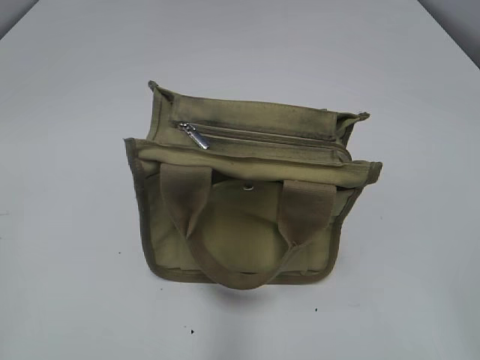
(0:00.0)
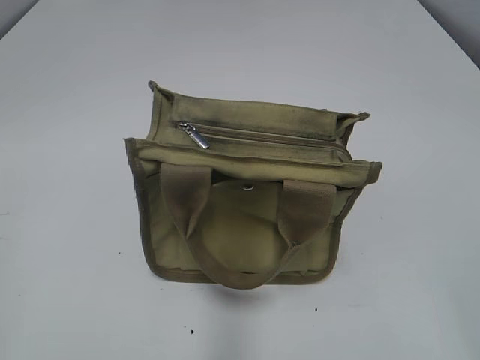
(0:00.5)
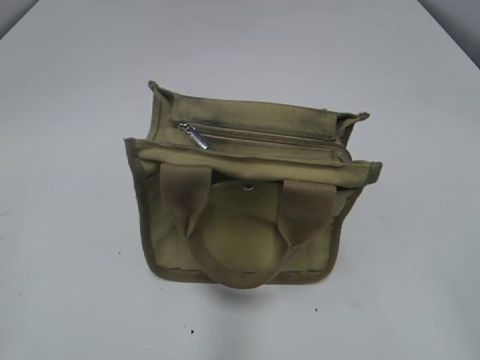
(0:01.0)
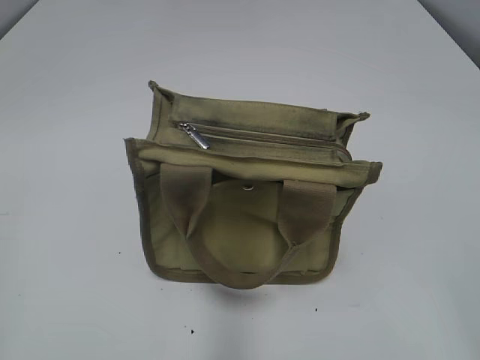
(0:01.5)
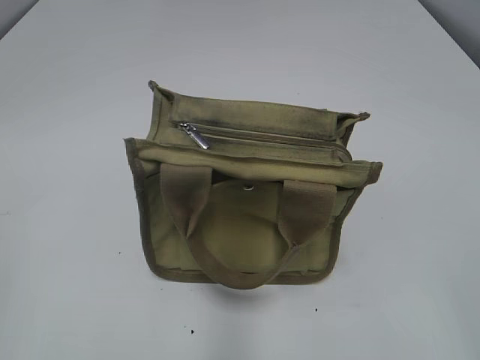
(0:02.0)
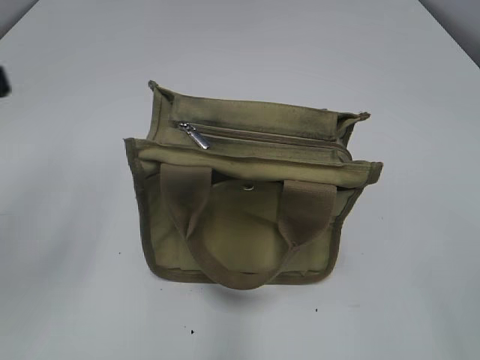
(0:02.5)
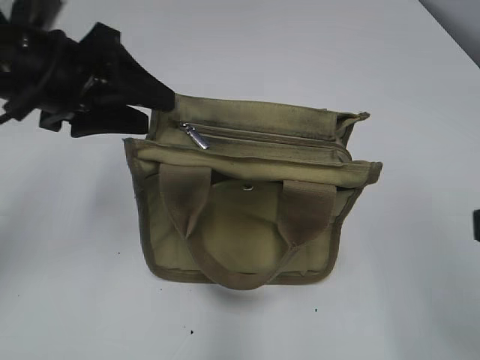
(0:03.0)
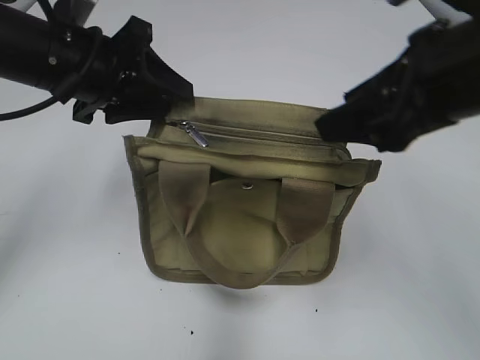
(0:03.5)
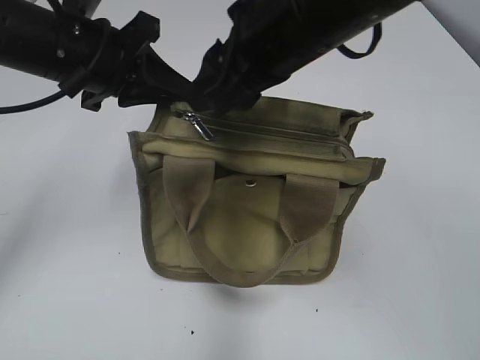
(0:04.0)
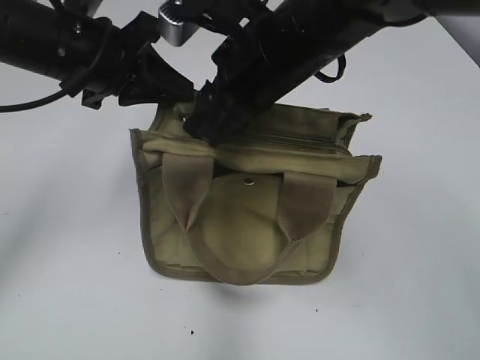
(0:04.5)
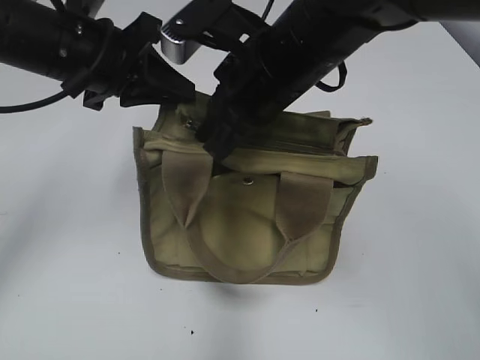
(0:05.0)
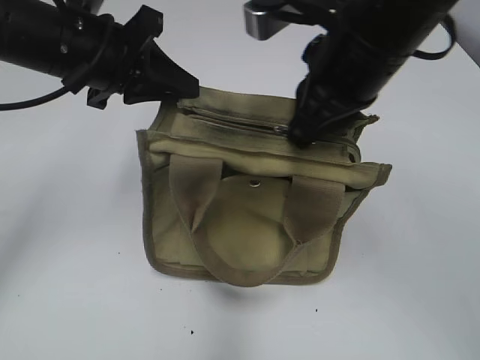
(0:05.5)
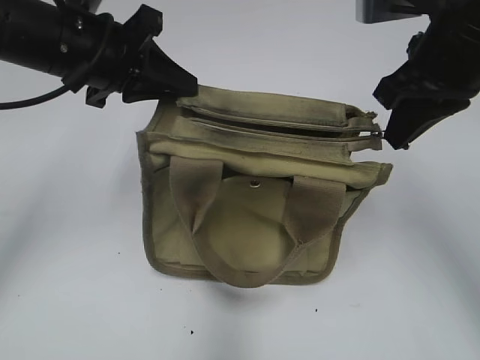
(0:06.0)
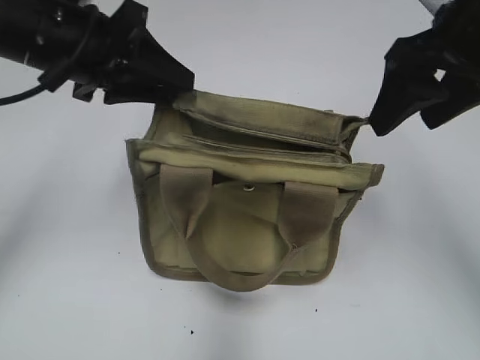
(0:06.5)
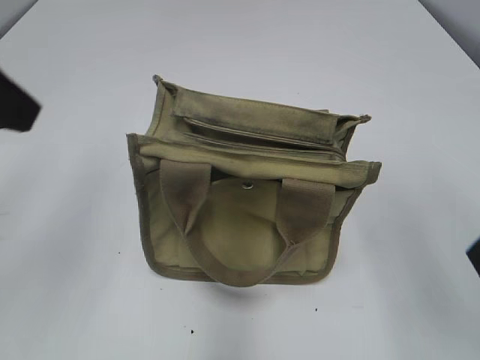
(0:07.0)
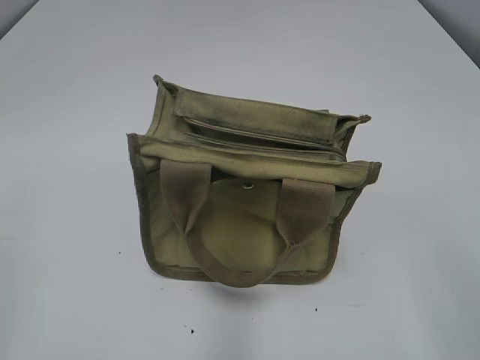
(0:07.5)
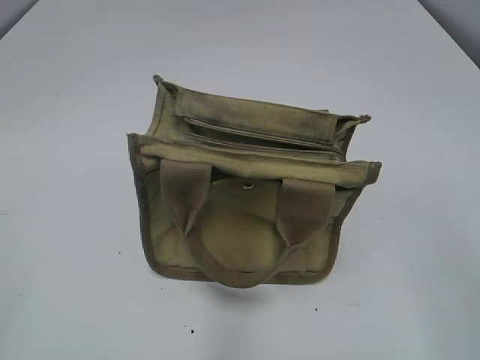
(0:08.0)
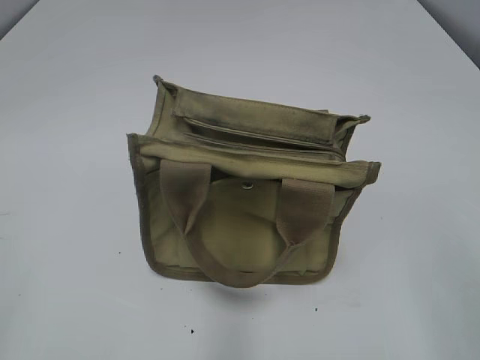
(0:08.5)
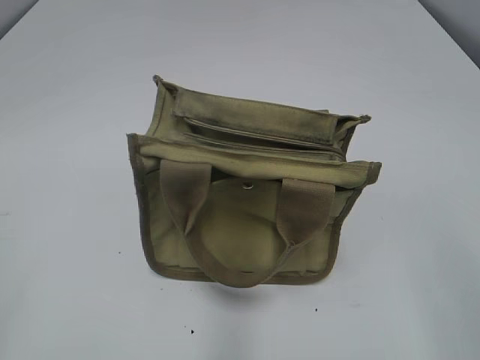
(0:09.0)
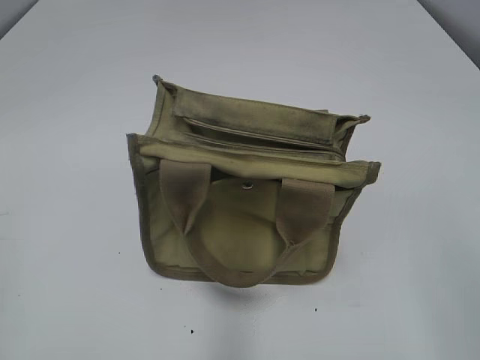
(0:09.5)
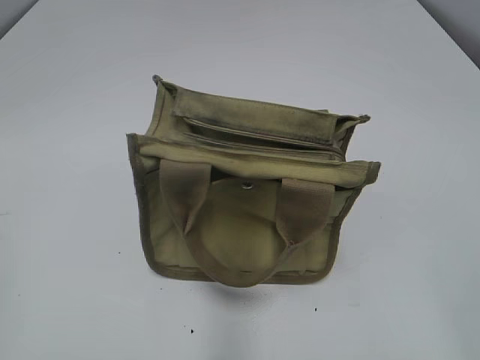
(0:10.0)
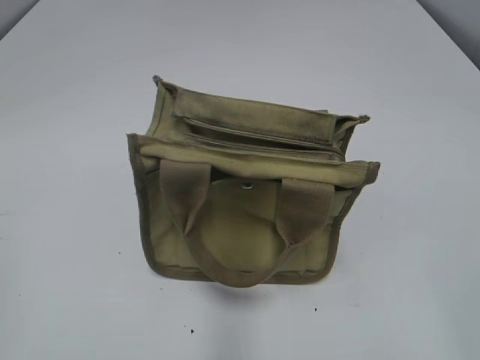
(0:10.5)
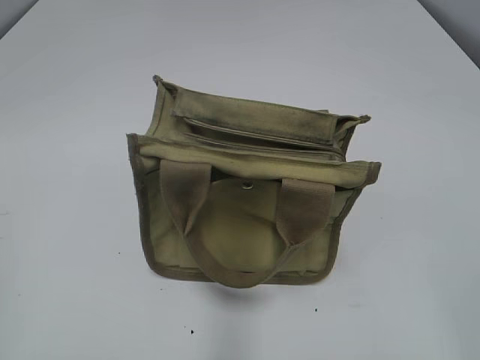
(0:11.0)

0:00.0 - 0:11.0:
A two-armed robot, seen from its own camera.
Step, 0:00.0 - 0:06.0: Pull open the zipper with your right hand.
0:02.0 - 0:03.5: The left gripper goes about 35 cm forward and to the right, and opens up. Meanwhile the right gripper heads forward and to the left, covering about 25 cm.
0:03.5 - 0:05.5: The right gripper travels to the left and forward by approximately 15 cm, and closes up; the left gripper closes up.
0:05.5 - 0:07.5: The left gripper shifts about 30 cm backward and to the left, and opens its fingers. The right gripper shifts about 30 cm backward and to the right, and opens up.

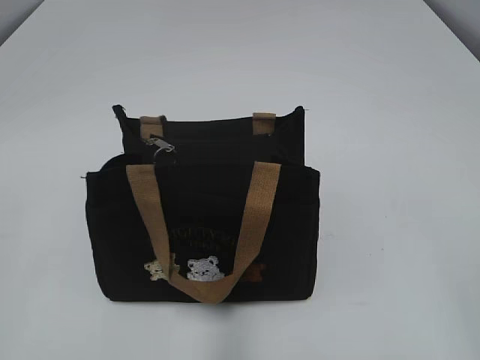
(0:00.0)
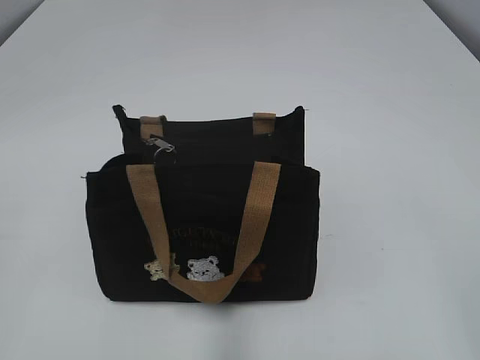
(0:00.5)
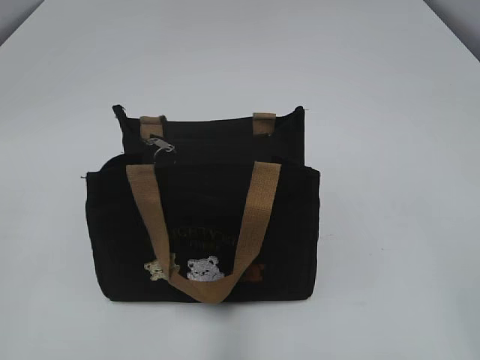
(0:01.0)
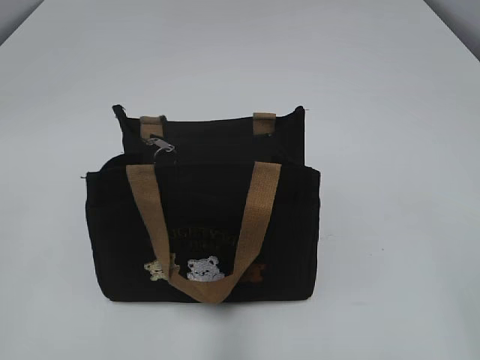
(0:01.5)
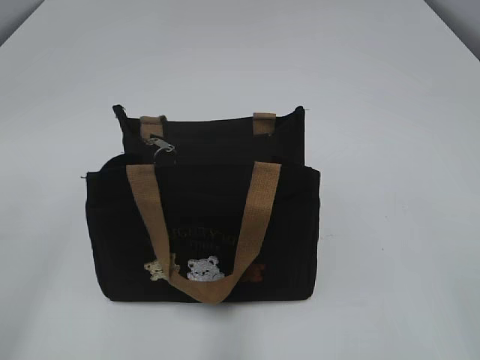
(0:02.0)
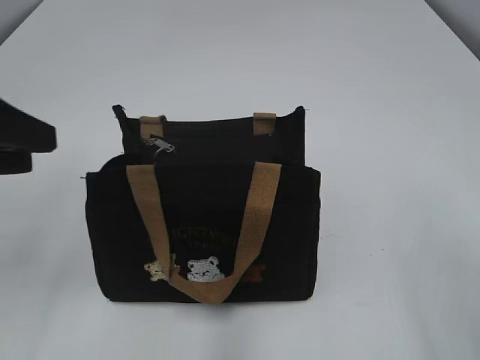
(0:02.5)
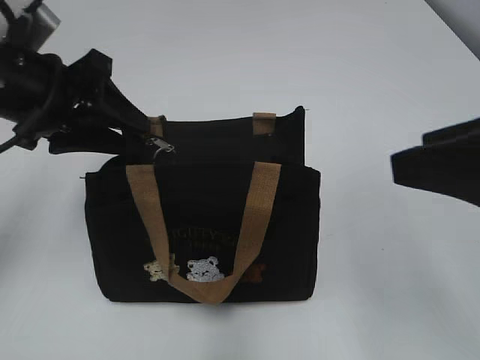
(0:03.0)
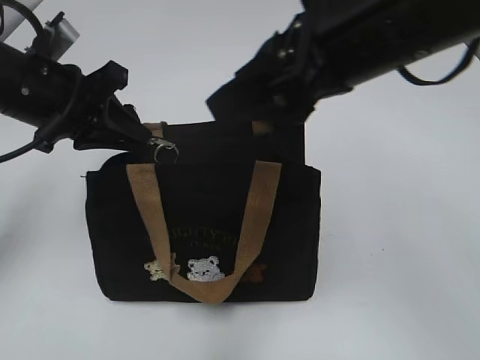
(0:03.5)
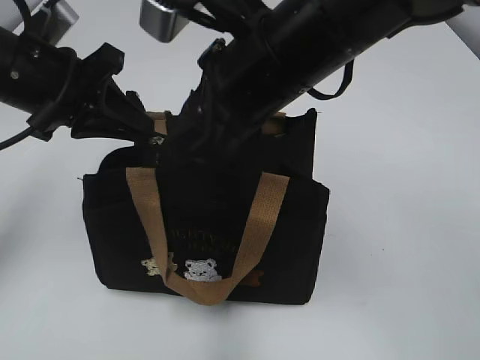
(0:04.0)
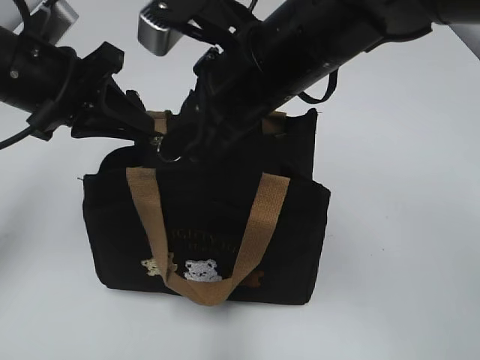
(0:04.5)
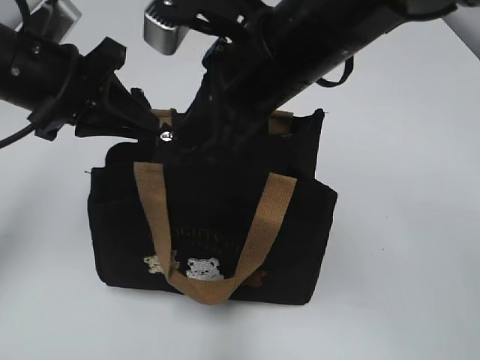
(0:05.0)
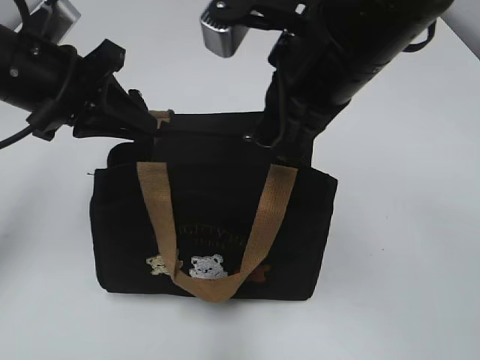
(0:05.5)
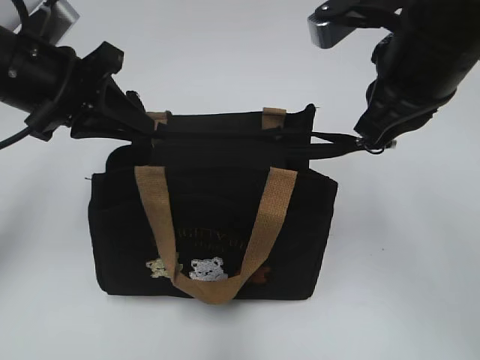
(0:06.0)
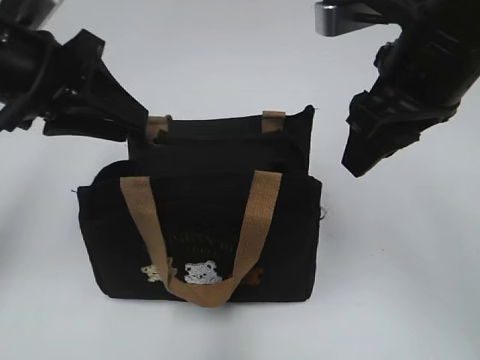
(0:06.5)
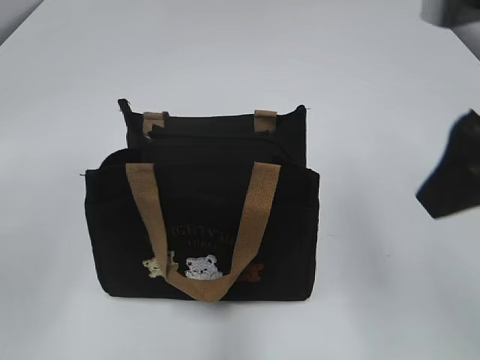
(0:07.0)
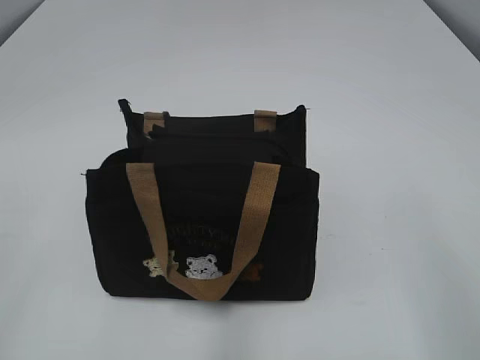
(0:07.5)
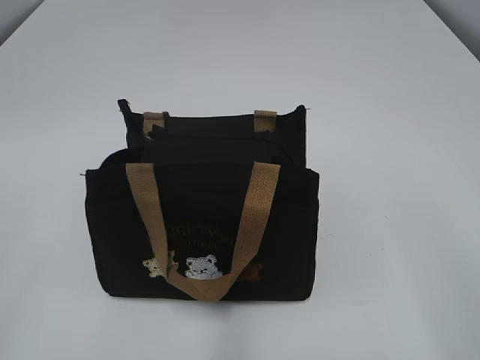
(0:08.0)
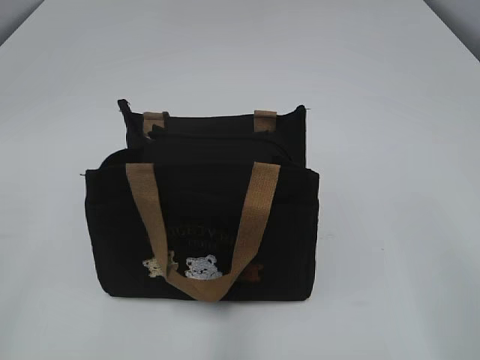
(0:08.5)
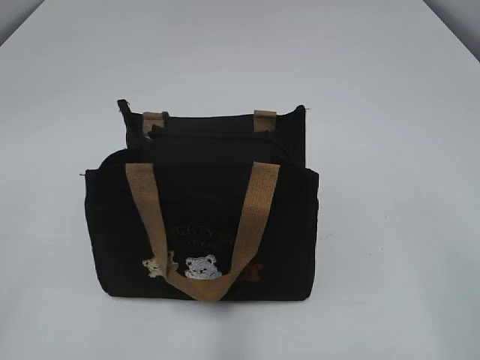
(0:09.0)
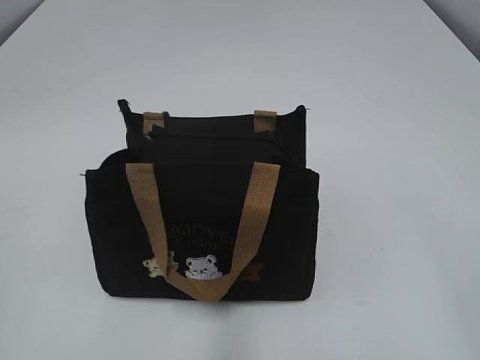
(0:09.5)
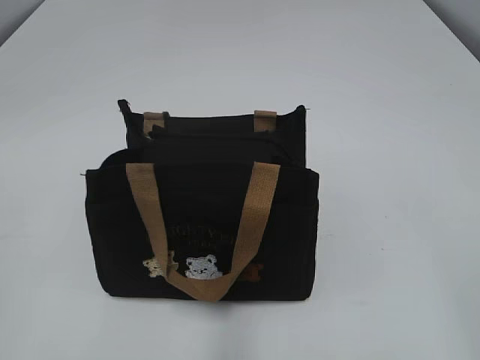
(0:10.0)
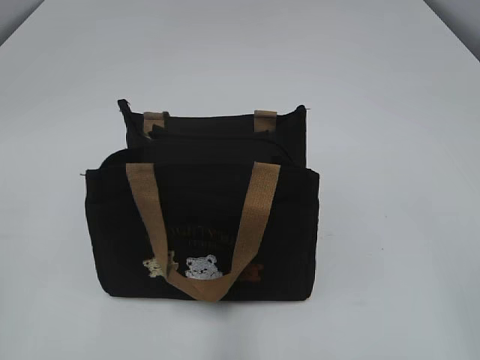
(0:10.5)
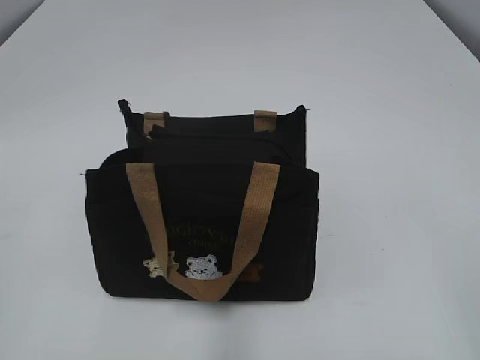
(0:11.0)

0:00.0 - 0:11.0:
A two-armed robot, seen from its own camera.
Step, 0:00.0 - 0:06.0: Pull open the zipper with your right hand.
0:02.0 - 0:03.5: The left gripper is displaced forward by approximately 30 cm, and closes its fingers. The right gripper goes approximately 30 cm forward and to the left.
0:03.5 - 0:05.5: The right gripper closes its fingers.
0:05.5 - 0:07.5: The right gripper heads backward and to the right, covering roughly 25 cm, and opens; the left gripper moves backward and to the left, some 30 cm, and opens up.

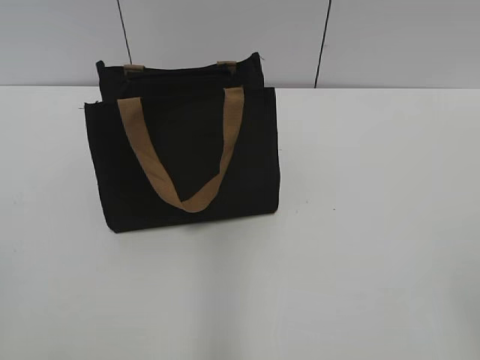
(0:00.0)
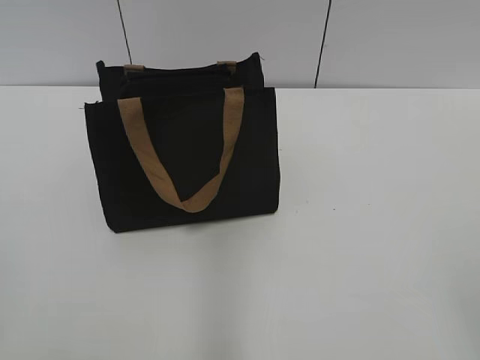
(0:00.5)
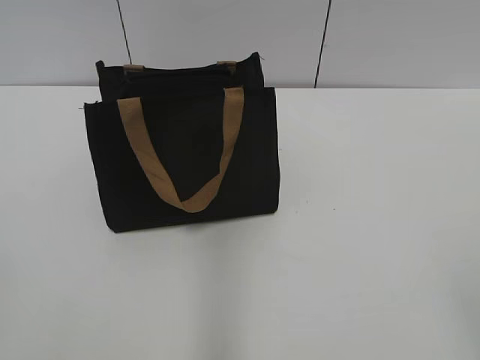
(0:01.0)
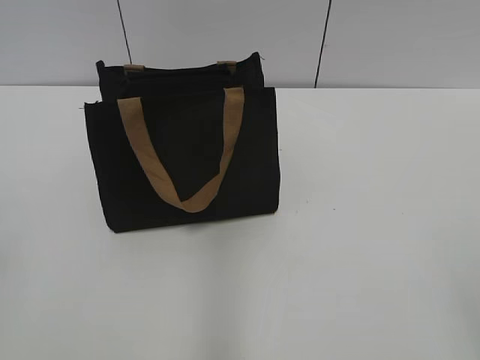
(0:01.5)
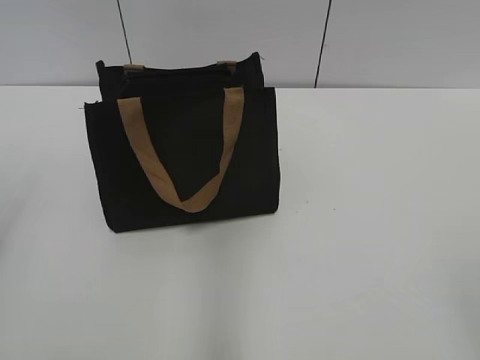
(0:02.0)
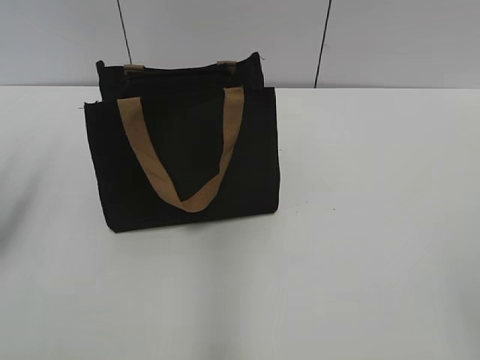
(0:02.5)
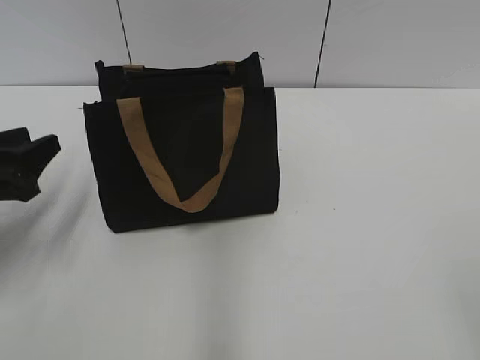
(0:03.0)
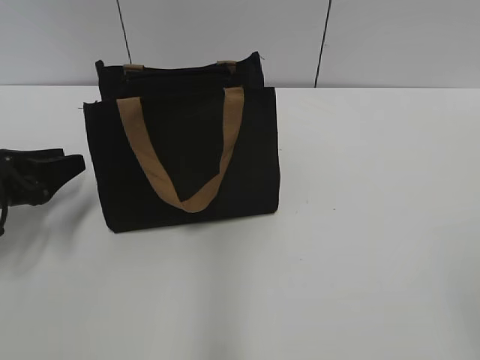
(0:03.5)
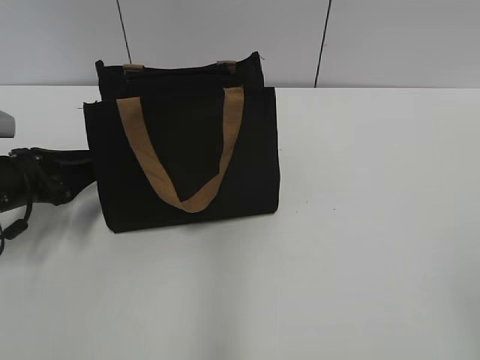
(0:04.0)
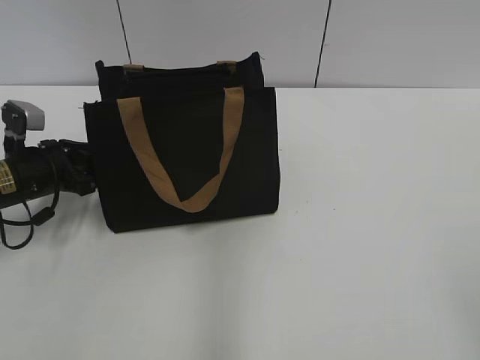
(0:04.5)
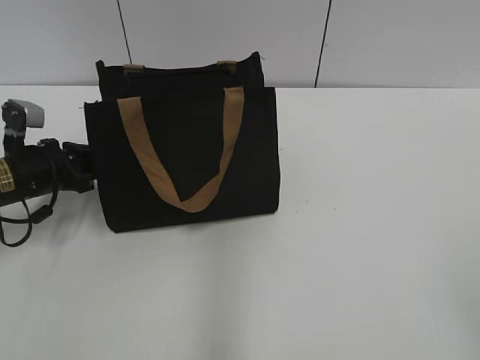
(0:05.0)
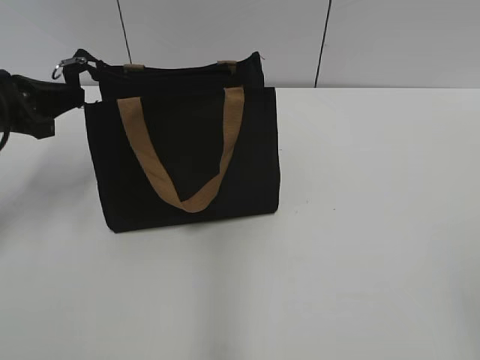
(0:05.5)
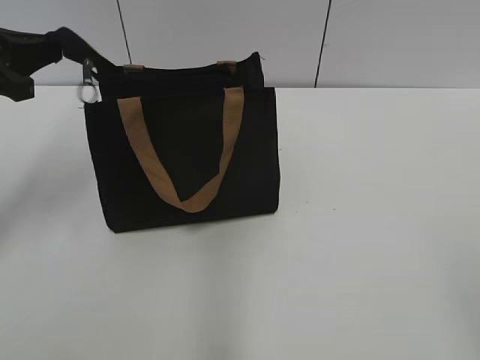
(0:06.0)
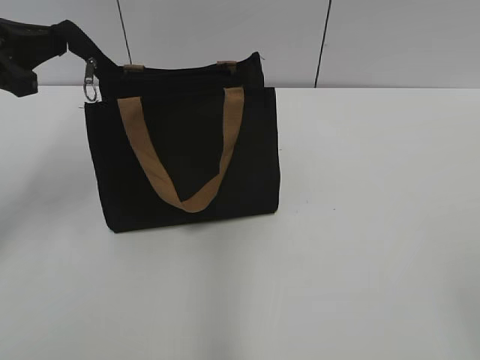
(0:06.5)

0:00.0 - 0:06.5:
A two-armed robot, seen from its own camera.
0:02.0 - 0:04.5: The left gripper travels downward and forward by approximately 30 cm.
0:04.5 - 0:06.5: The left gripper shifts about 20 cm upward, and closes its fingers.
